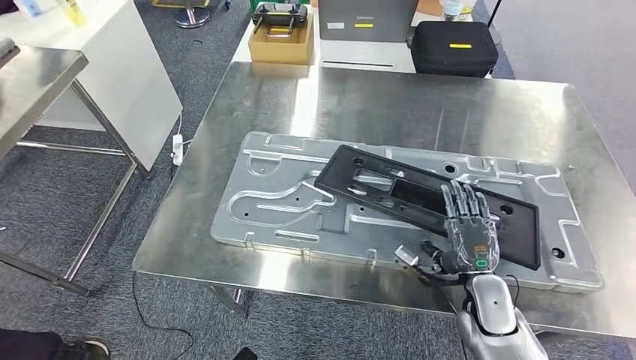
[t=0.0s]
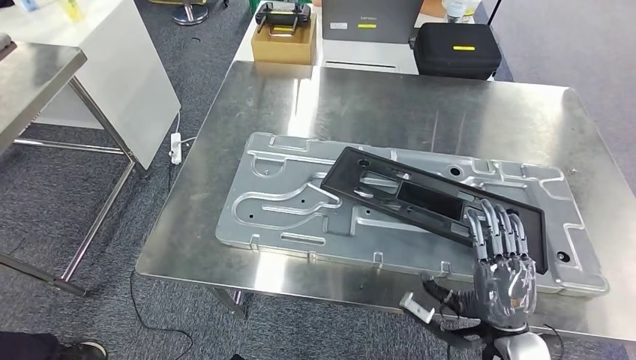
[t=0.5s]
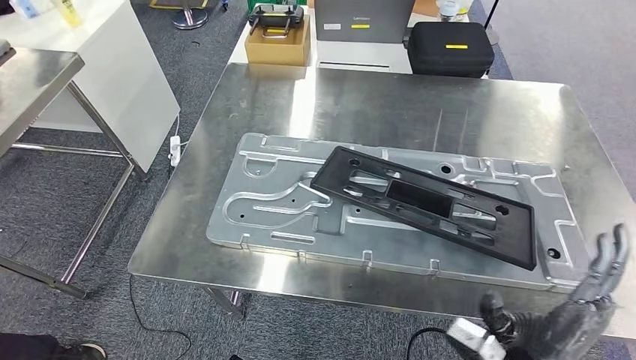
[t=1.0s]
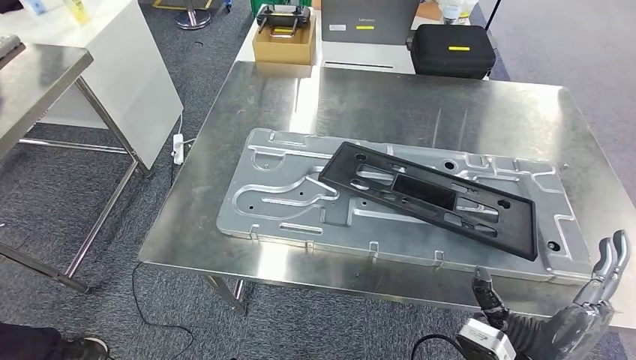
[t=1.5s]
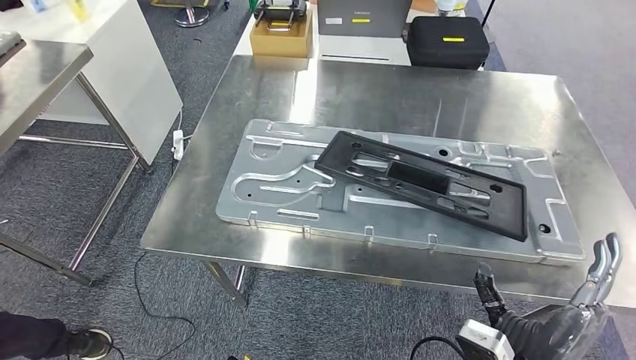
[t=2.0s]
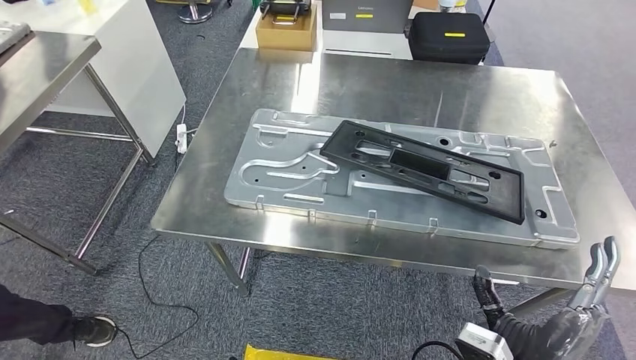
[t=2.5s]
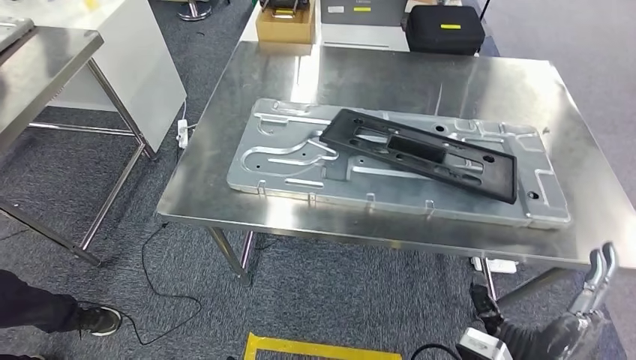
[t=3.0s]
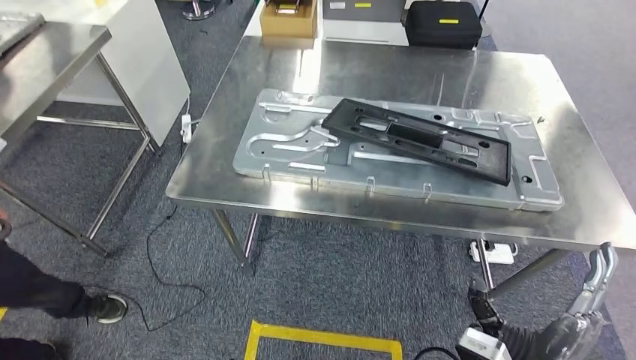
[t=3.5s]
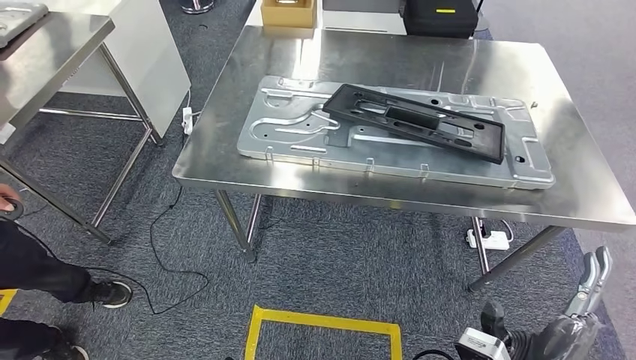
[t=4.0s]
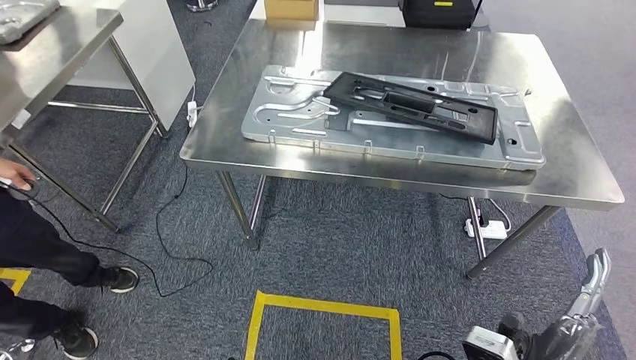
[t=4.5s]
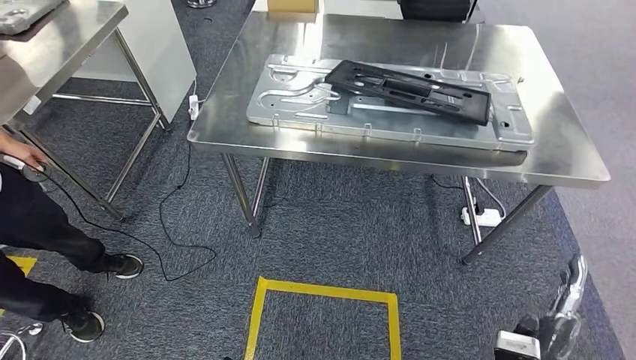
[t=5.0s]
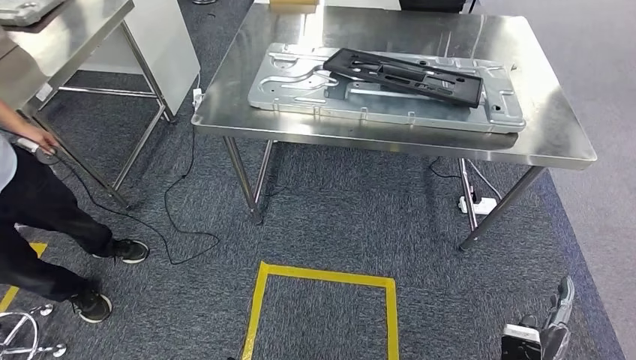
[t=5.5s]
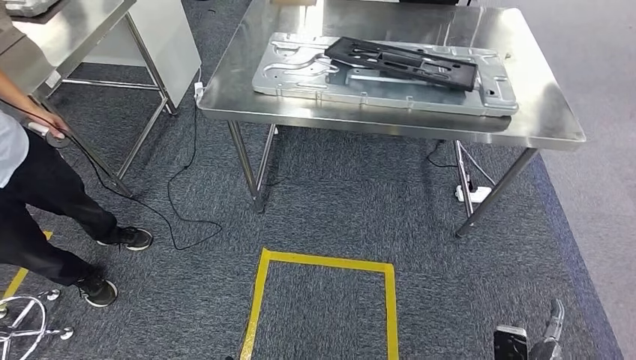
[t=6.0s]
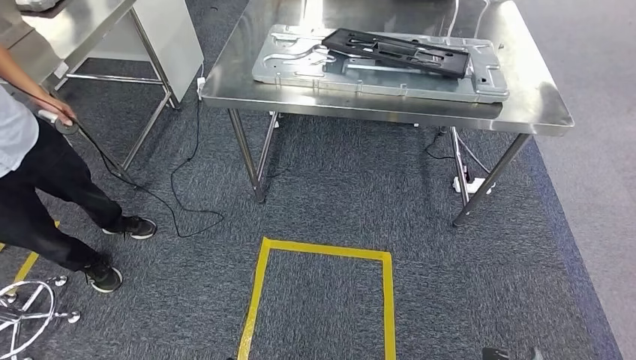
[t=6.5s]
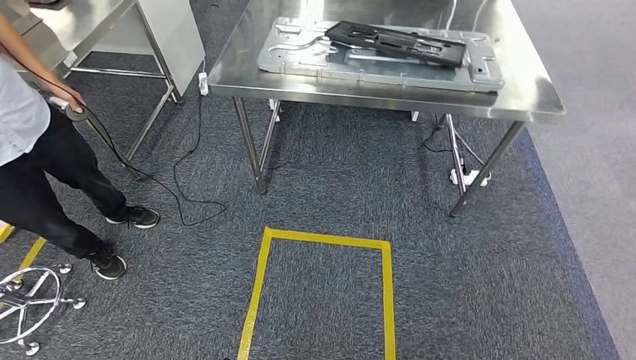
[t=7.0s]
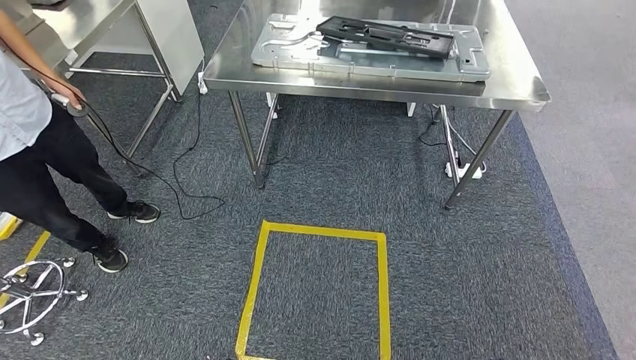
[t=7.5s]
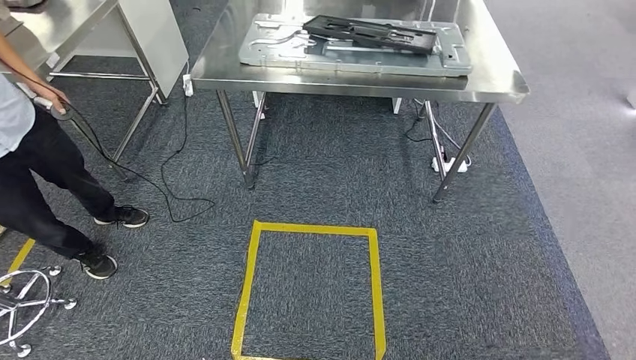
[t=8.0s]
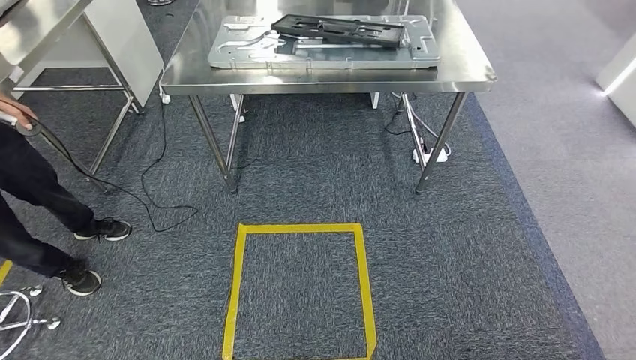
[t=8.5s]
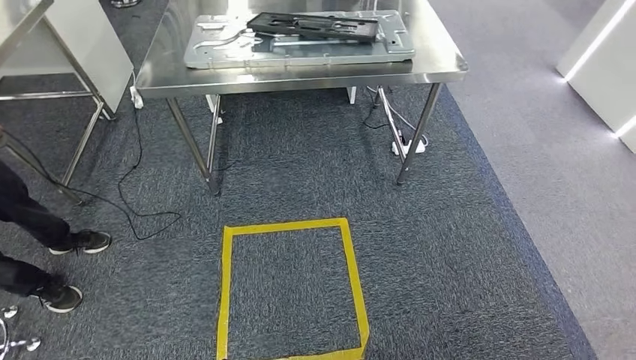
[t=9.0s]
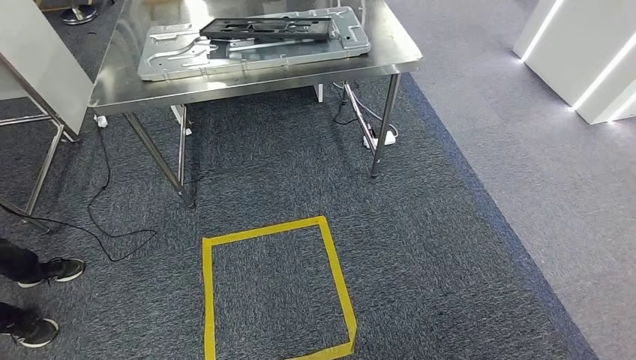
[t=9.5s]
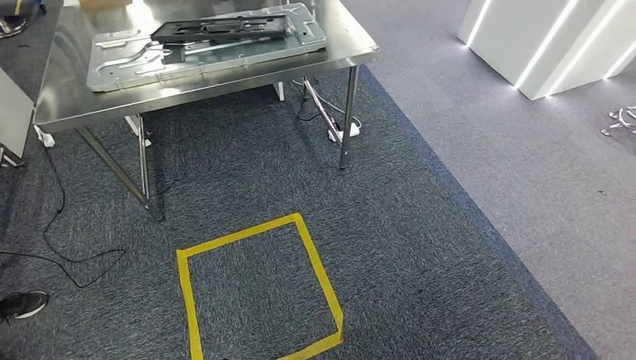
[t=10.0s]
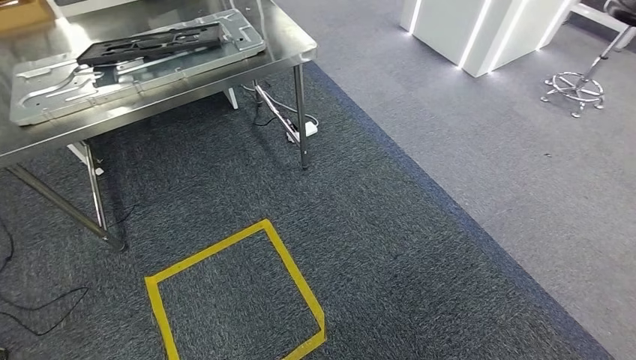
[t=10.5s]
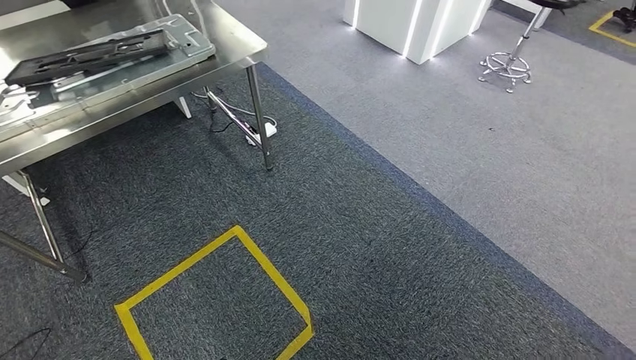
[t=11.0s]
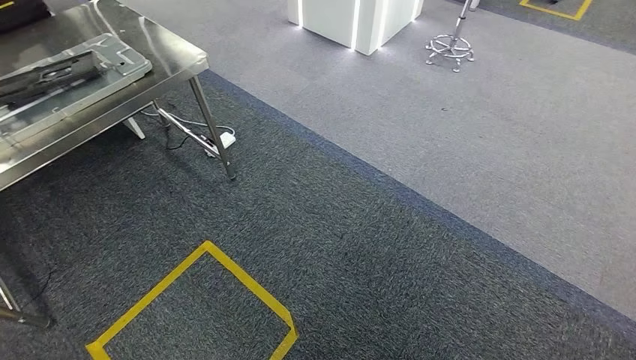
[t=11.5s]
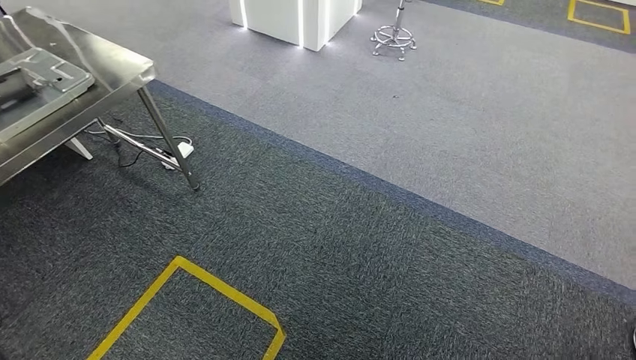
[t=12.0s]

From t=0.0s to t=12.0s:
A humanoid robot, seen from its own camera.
Step, from t=0.0s to t=3.5s: Insert the large material into the corresponding slot on the workbench.

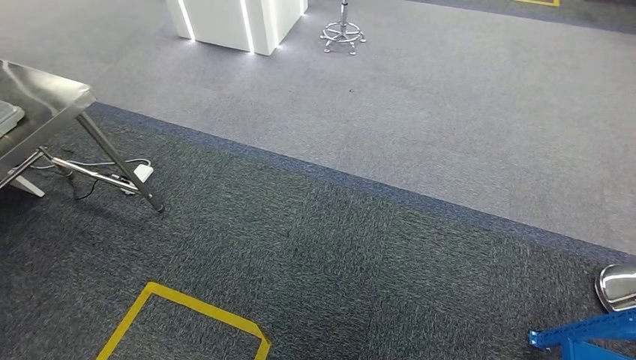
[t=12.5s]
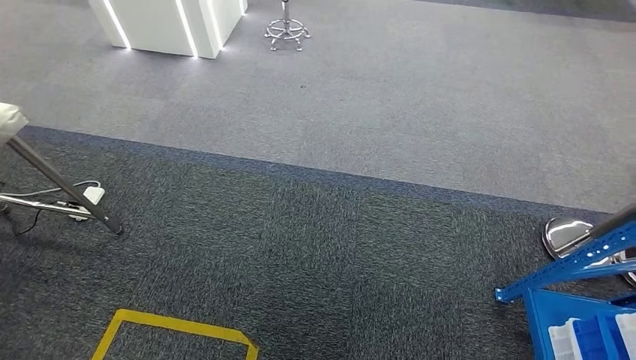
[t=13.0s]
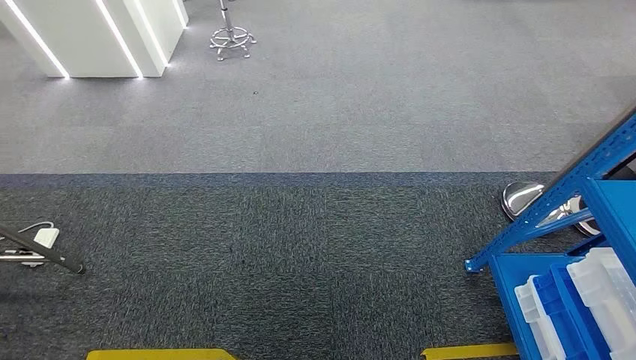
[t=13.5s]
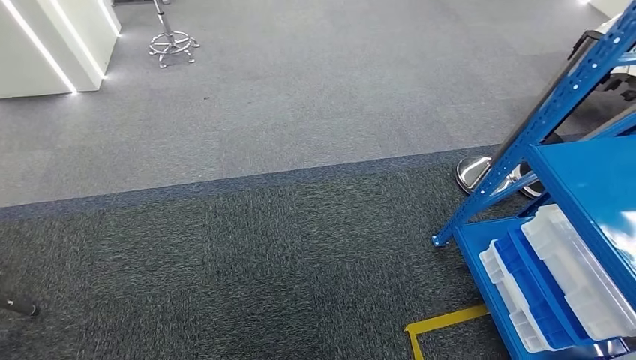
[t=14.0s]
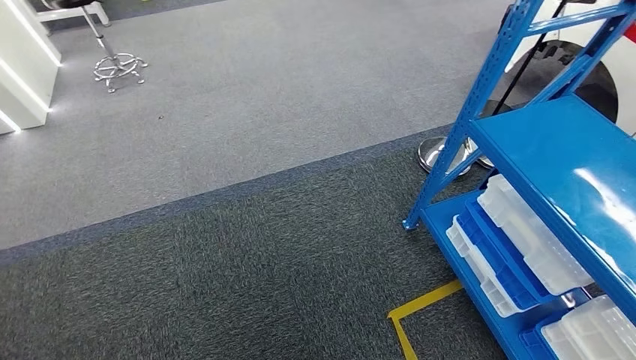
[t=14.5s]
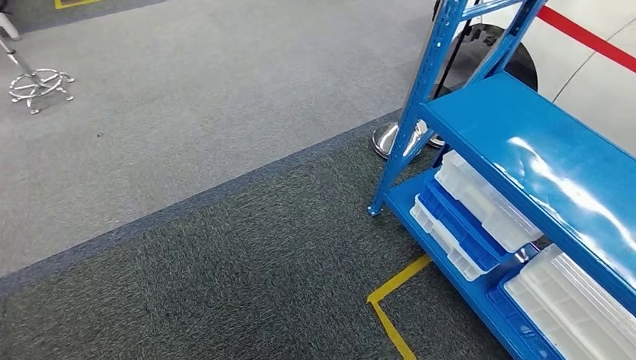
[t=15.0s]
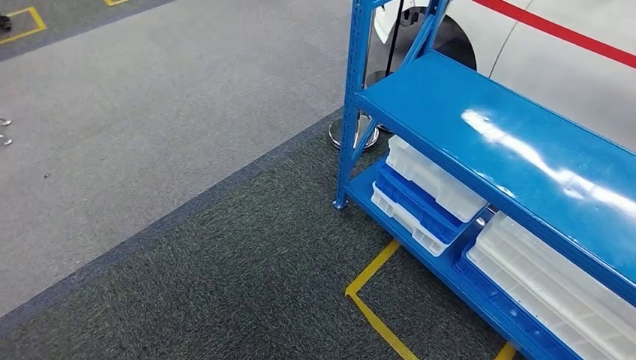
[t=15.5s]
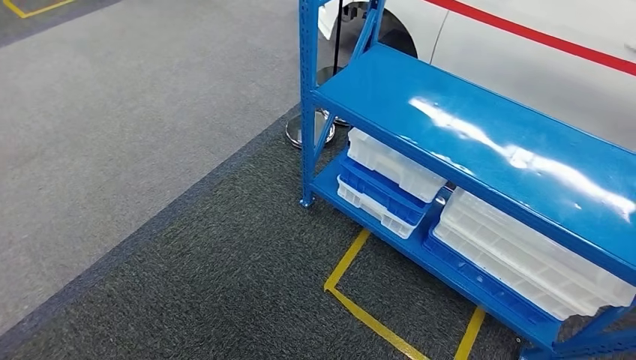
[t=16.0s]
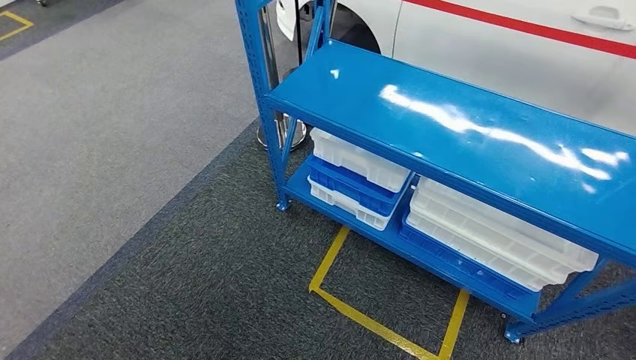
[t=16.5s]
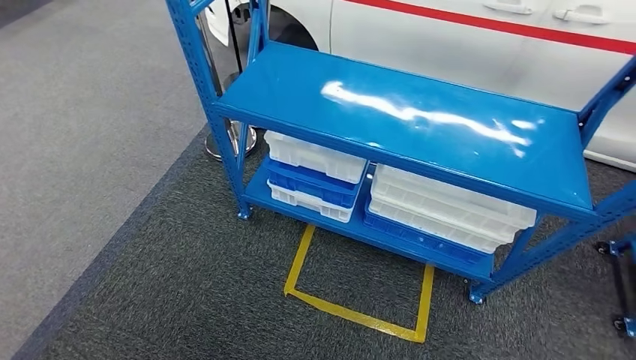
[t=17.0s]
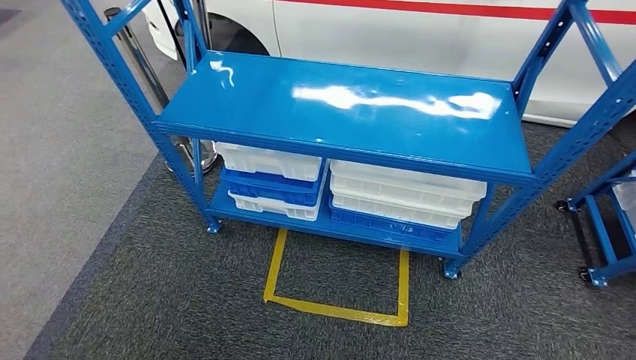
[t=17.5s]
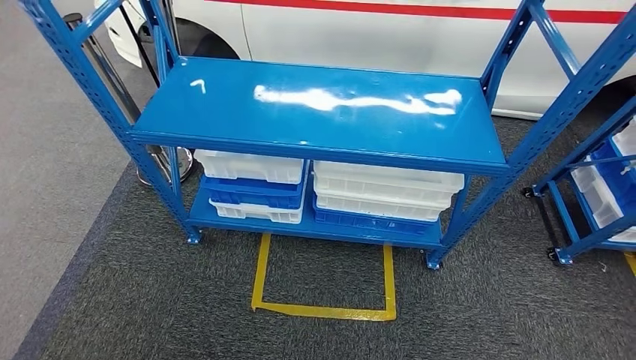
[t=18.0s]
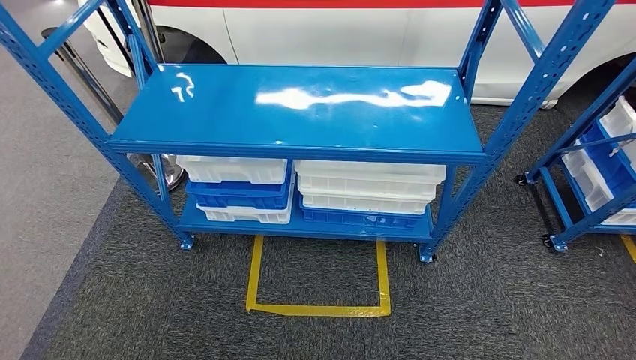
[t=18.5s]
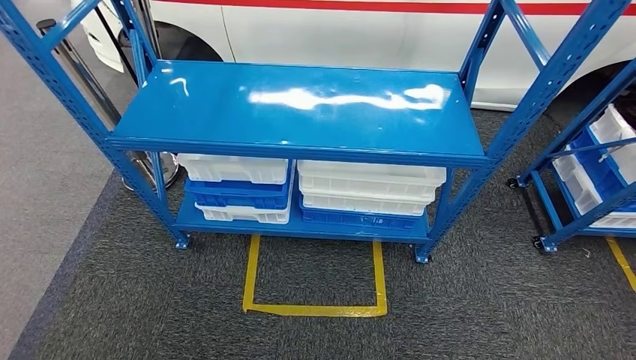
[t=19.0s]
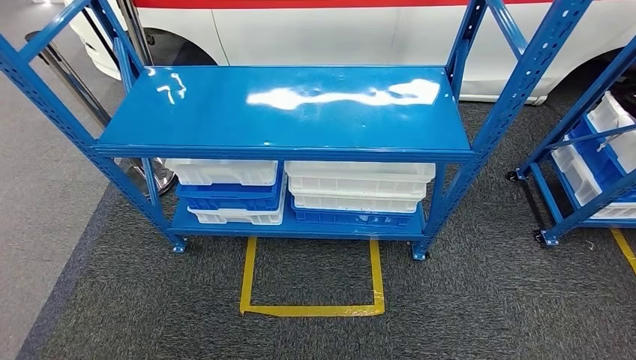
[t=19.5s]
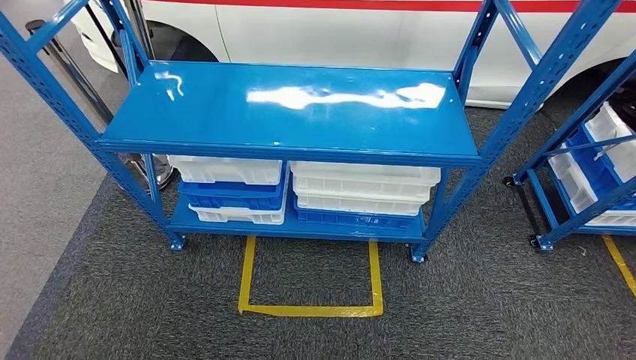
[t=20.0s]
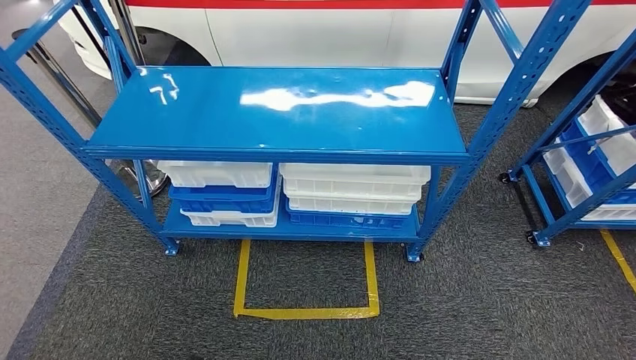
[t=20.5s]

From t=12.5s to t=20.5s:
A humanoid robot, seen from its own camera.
Step, from t=12.5s to t=20.5s: Return to the initial position at the shelf.
